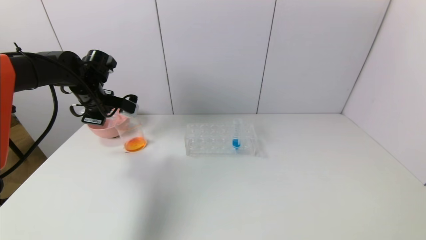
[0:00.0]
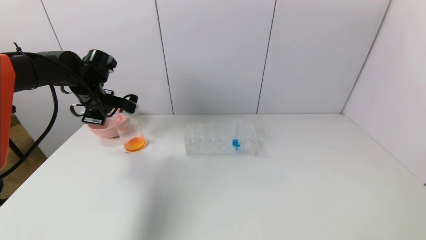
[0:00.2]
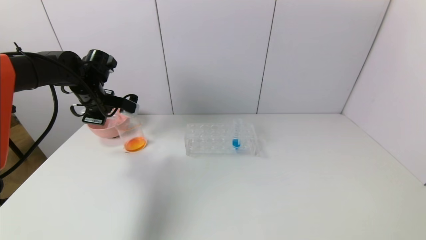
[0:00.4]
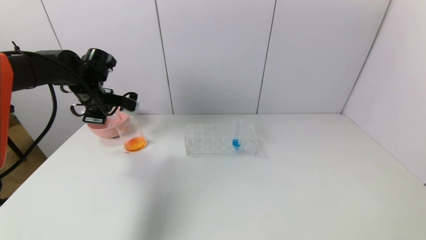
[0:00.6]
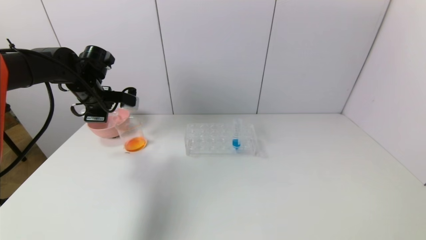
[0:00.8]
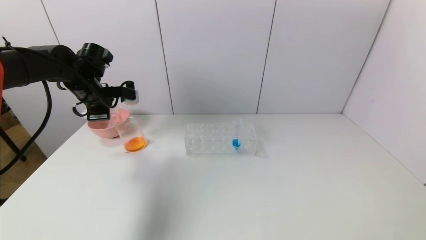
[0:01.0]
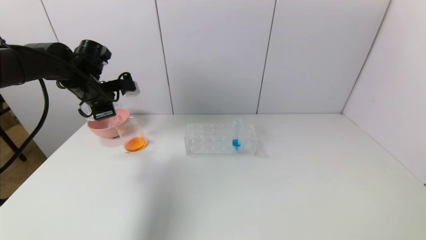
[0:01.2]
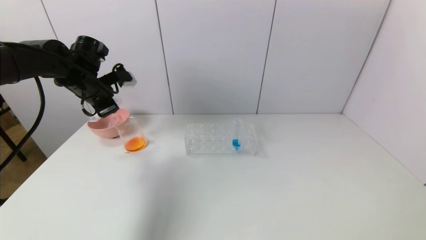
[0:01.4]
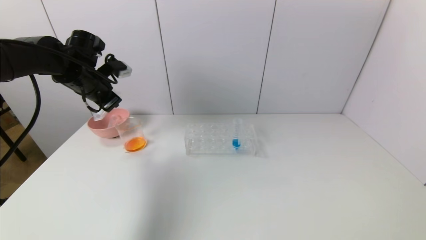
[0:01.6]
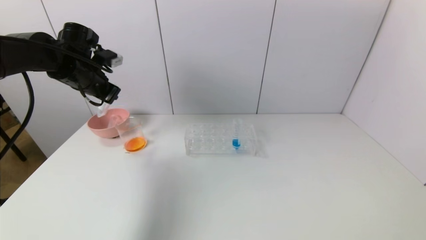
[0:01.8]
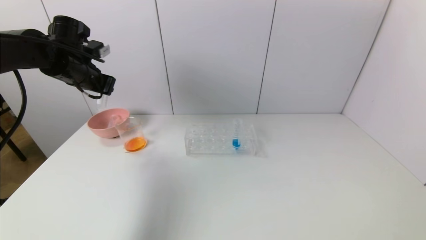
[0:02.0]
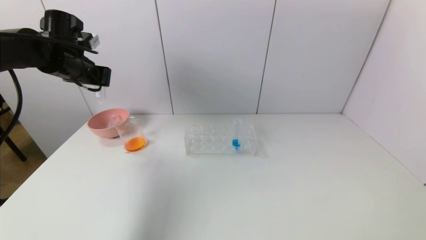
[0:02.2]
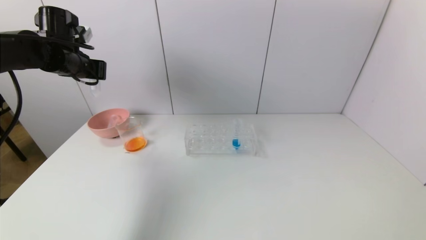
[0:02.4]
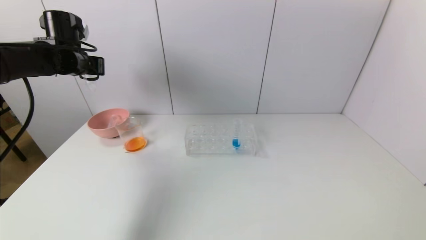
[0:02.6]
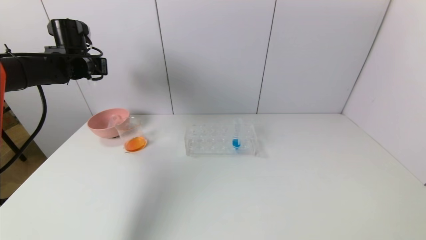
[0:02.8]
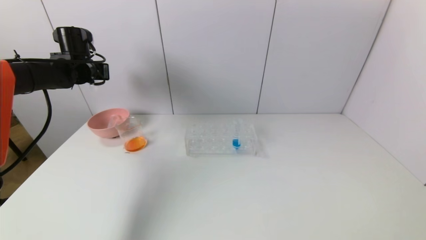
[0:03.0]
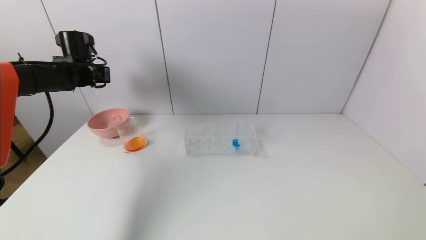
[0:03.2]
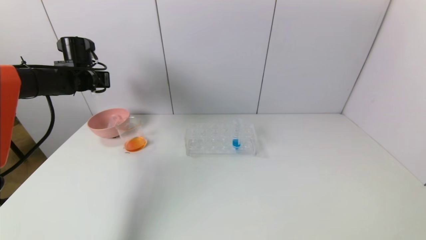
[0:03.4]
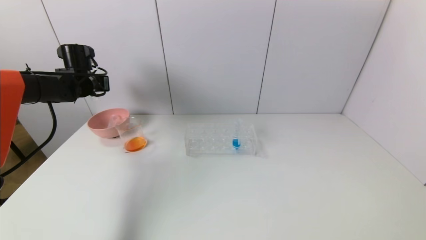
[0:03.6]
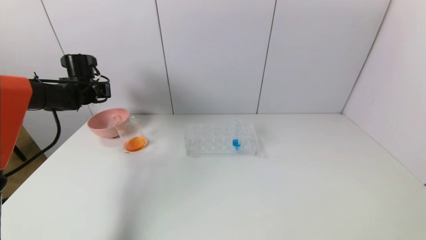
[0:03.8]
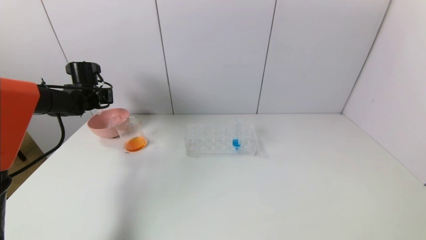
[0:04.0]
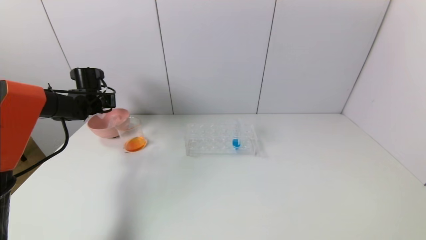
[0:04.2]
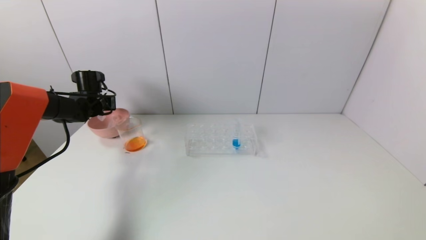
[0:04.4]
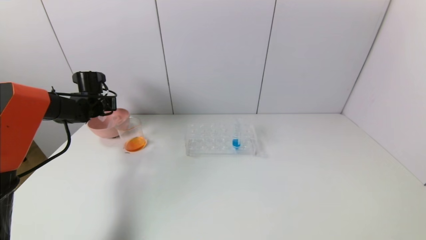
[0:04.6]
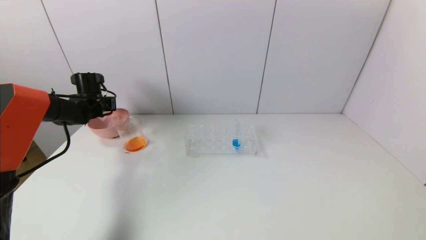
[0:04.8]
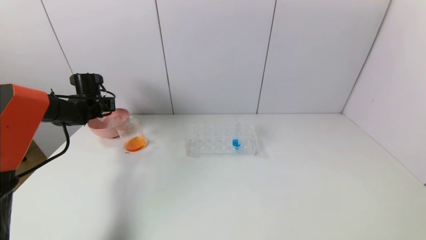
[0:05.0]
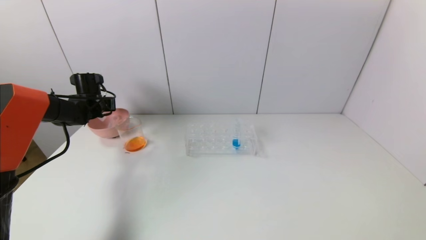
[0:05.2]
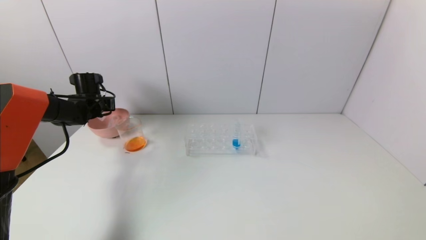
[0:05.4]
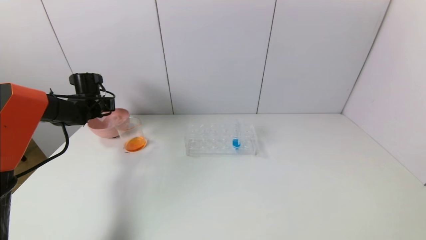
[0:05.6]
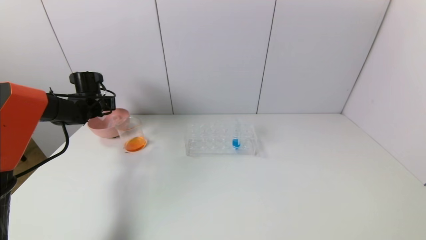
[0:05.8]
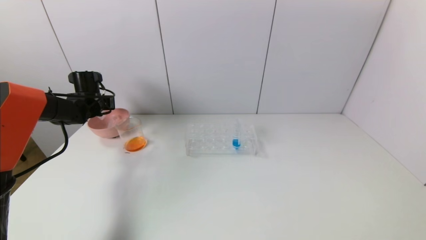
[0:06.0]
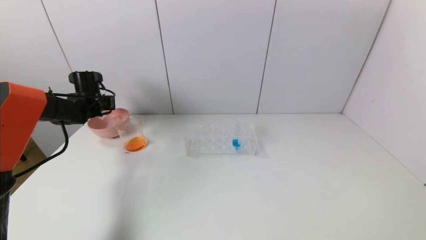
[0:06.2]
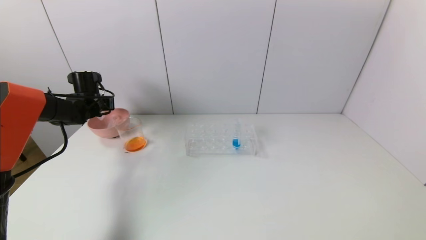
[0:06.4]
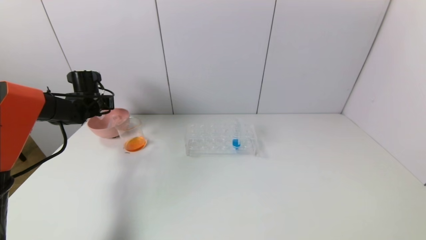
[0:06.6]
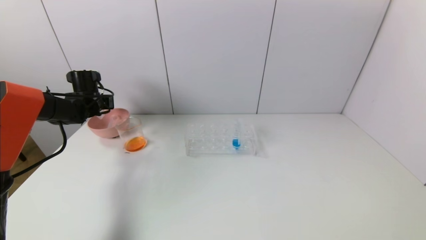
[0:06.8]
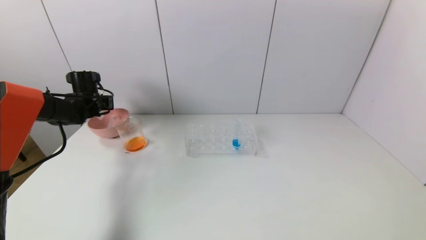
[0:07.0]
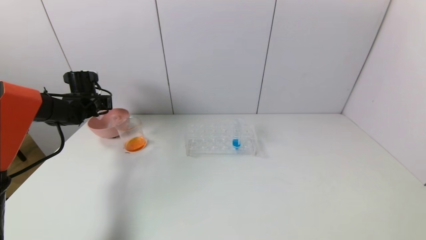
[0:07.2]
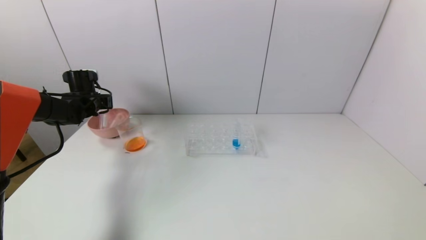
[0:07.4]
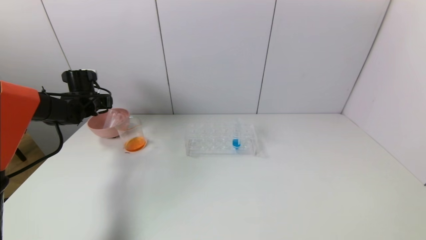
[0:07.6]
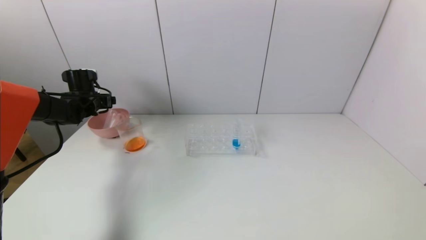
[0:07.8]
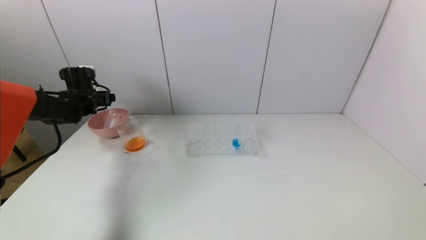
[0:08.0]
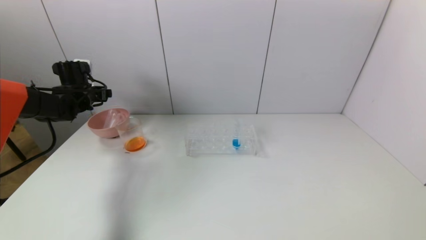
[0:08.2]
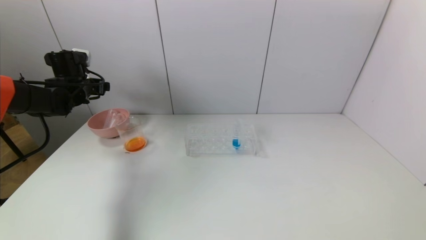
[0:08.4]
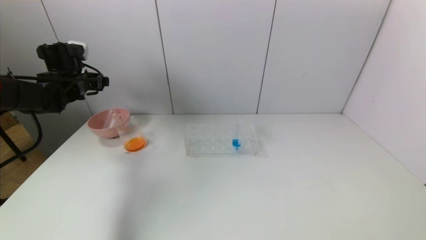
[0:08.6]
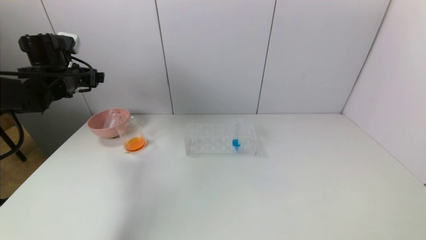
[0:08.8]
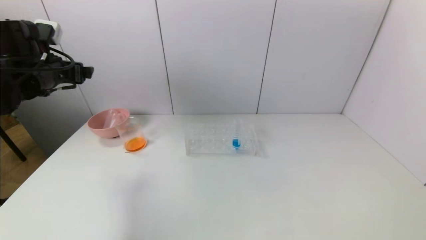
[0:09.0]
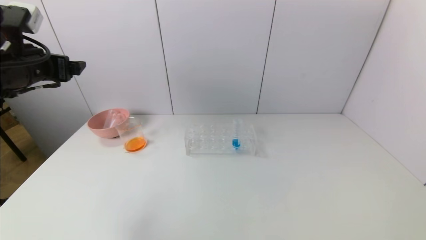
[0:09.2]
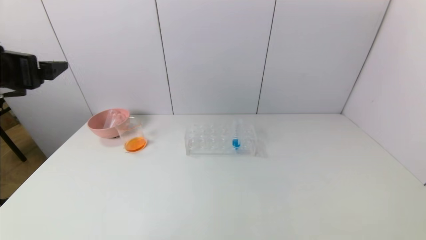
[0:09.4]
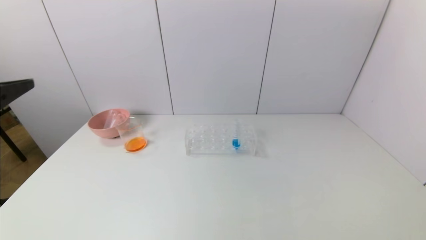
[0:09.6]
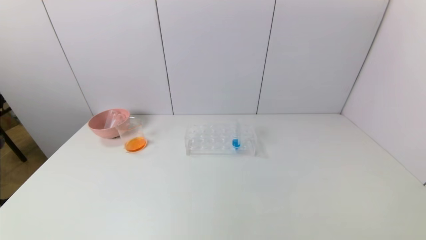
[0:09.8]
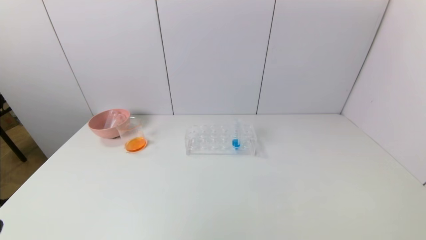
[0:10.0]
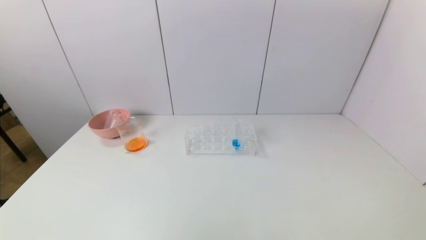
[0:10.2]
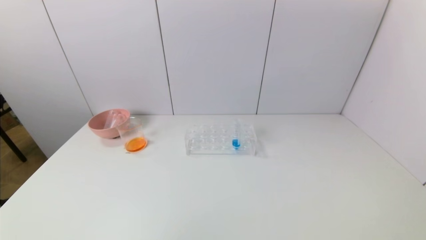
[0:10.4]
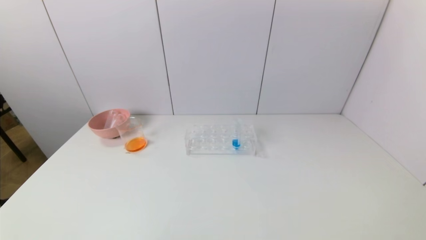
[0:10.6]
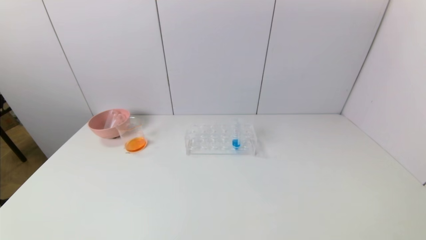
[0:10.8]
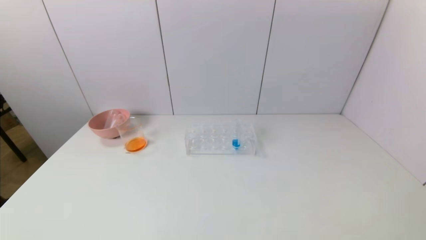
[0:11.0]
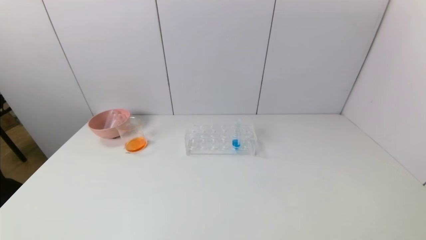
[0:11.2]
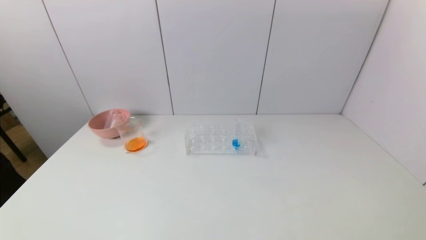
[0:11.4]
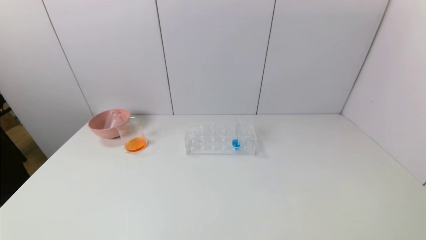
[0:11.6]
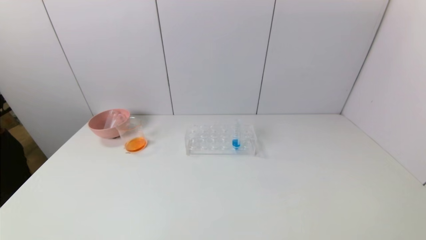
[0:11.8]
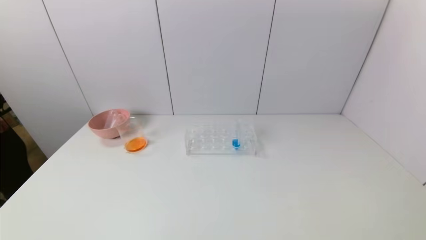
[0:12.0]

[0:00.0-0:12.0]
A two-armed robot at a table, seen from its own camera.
Task of the whole recording: pick up the test tube with yellow pigment and the test tube with red pigment by grippers and pour them into the beaker.
Step, 0:00.6 to 0:07.8: Place the test tube into the pink bowl with the left gripper.
0:01.6 to 0:03.0: The left gripper goes roughly 5 cm forward.
0:03.0 to 0:04.4: The left gripper travels downward by about 10 cm.
0:04.4 to 0:06.0: Both grippers stay about where they are.
0:06.0 to 0:07.6: The left gripper opens its fingers.
0:07.6 to 0:09.0: The left gripper goes some 20 cm backward and upward.
0:09.0 to 0:10.4: The left gripper moves backward and downward, about 40 cm.
0:10.4 to 0:12.0: The left gripper heads downward, covering approximately 5 cm.
